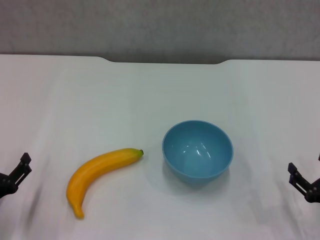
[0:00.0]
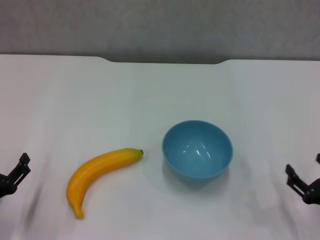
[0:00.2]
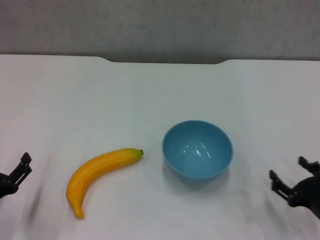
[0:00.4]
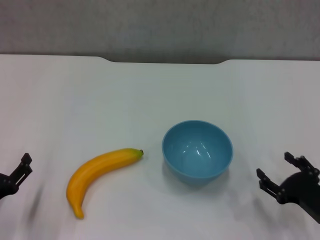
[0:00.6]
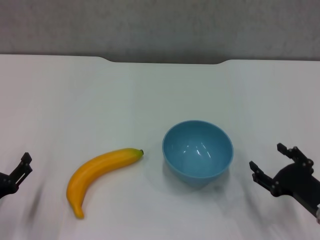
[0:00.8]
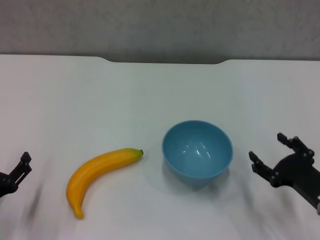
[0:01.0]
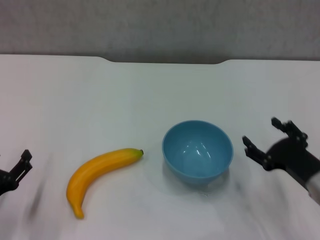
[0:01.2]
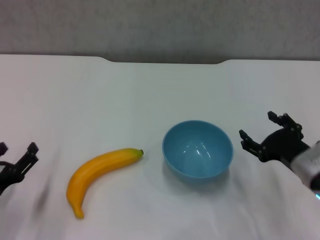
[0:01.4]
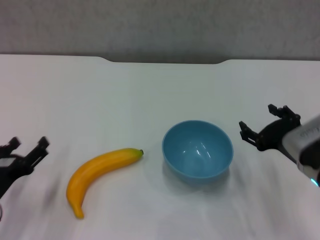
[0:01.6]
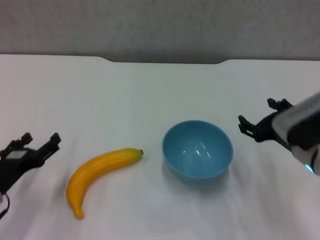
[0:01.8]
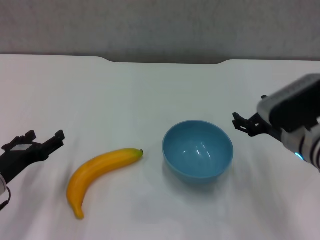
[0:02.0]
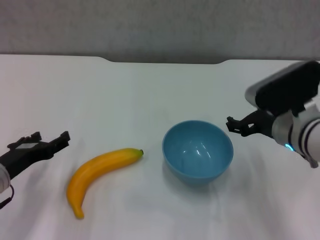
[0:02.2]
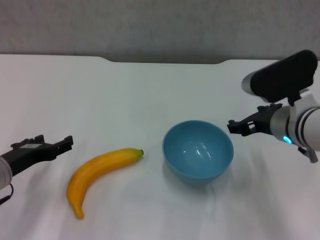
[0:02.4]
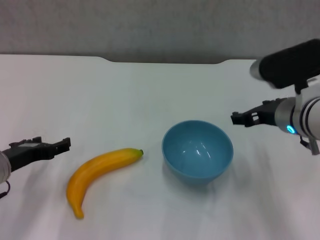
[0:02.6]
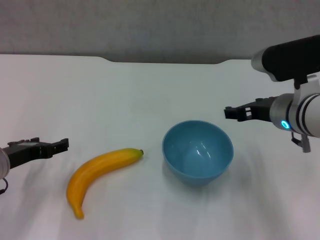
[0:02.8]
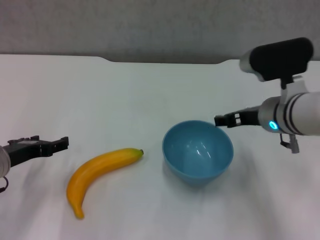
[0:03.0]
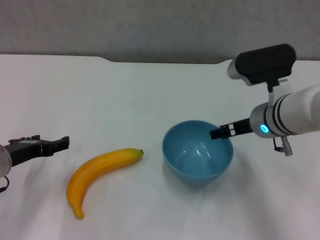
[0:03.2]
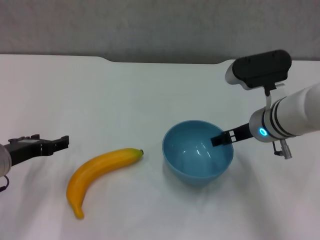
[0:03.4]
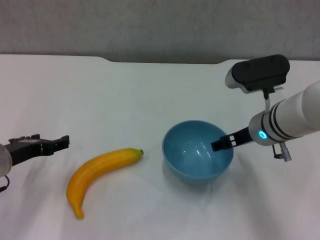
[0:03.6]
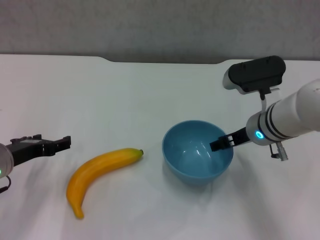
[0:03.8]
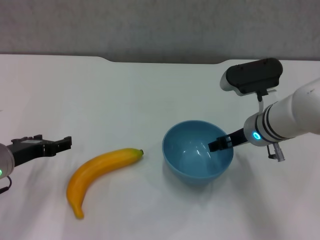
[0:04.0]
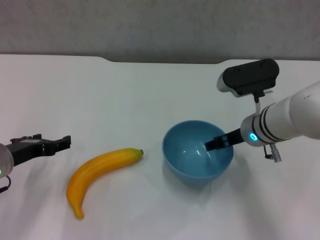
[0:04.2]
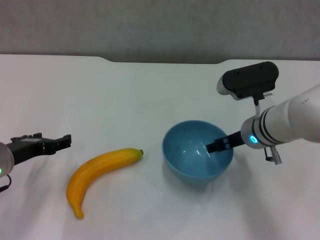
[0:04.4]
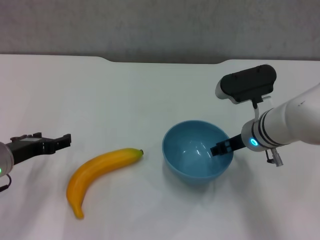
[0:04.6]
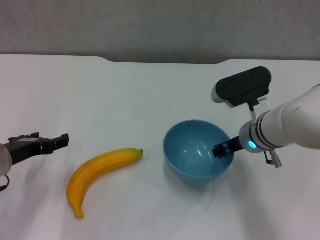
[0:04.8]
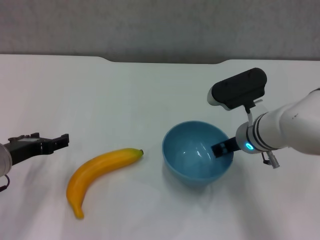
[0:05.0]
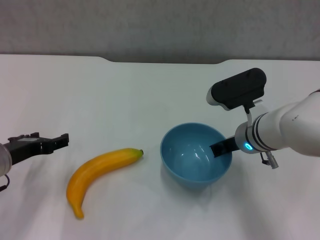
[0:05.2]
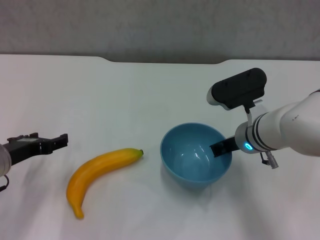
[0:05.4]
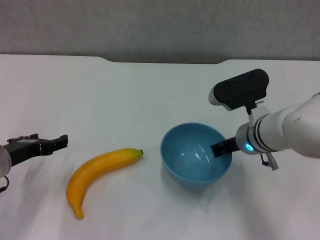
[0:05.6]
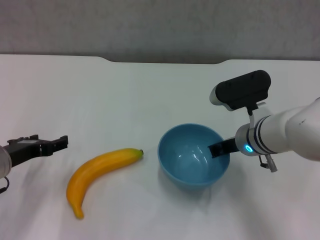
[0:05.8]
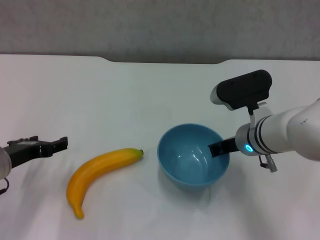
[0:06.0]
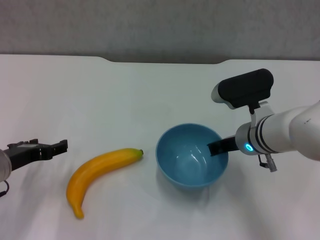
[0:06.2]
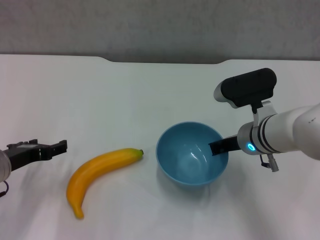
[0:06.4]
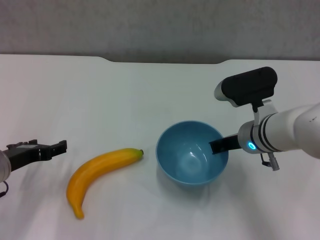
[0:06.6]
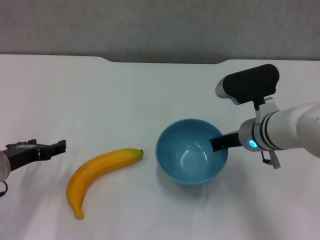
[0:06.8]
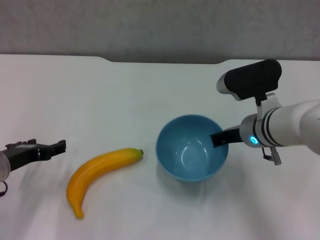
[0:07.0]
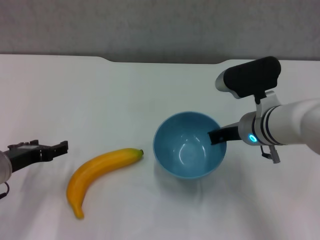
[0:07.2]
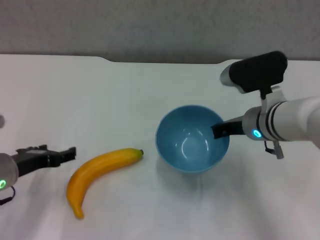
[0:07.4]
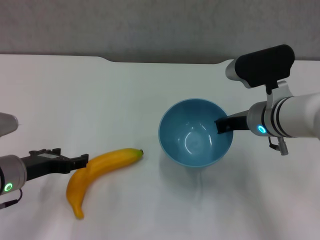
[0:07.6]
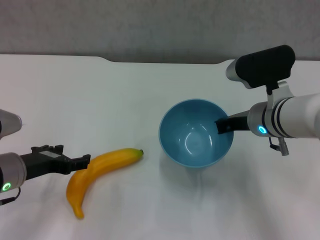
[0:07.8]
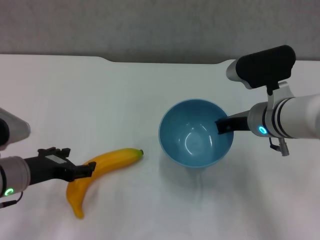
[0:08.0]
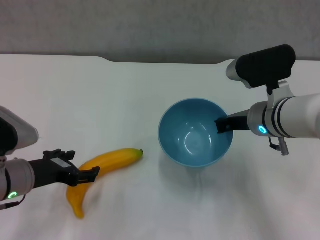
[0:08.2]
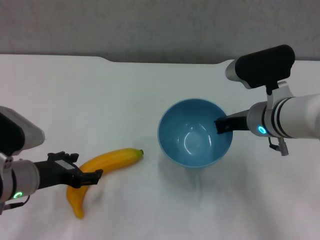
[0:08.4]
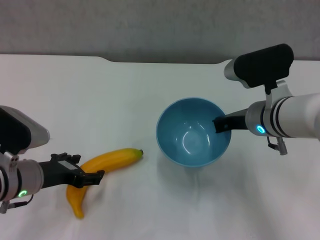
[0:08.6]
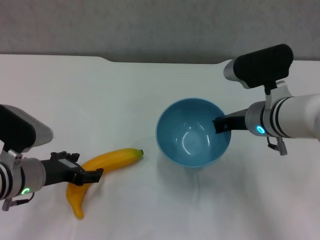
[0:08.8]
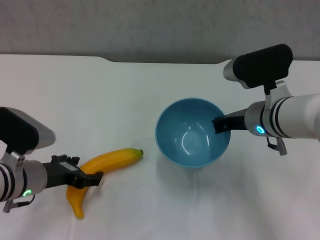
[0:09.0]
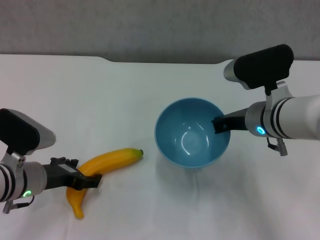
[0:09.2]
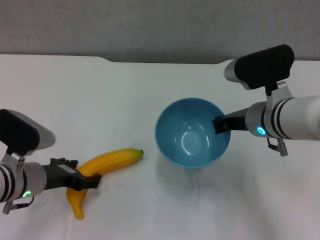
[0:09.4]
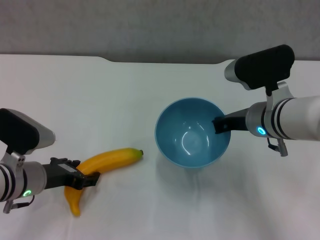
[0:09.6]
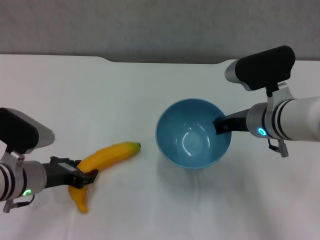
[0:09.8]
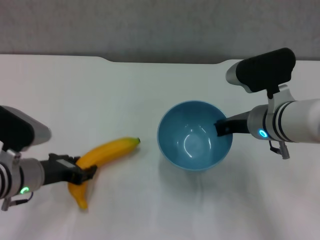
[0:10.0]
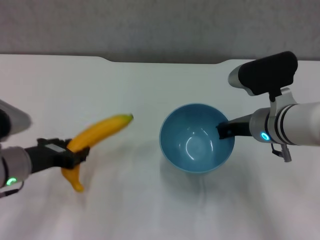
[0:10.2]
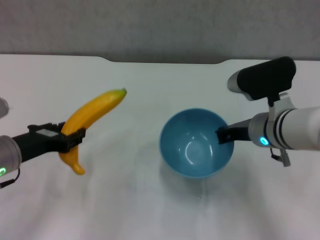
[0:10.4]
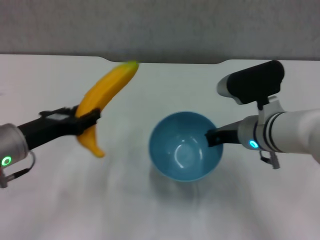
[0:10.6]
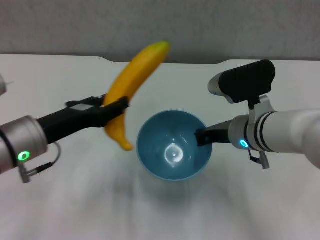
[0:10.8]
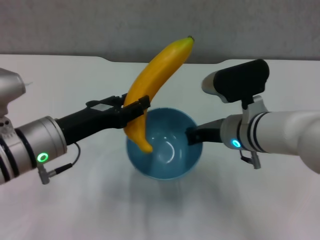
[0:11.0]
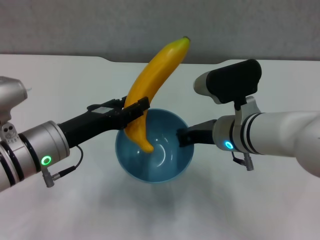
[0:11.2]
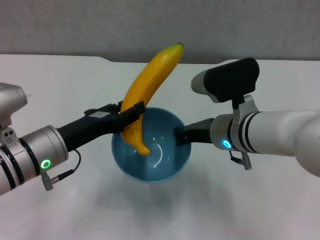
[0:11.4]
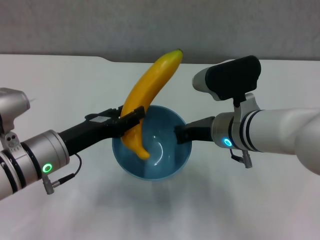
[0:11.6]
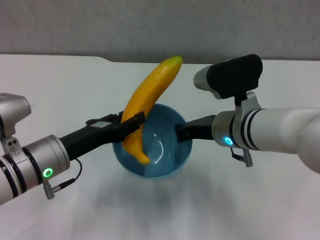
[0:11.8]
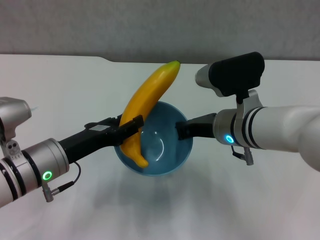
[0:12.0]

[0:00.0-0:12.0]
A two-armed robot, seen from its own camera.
Step, 0:00.0 to 0:05.0: Grasp the blue bowl with right gripper.
Step, 0:05.2 to 0:07.4: Lift the blue bowl with right gripper.
Step, 0:07.6 to 0:09.6: Grasp the banana with left gripper.
0:00.0 to 0:01.6: The right gripper moves upward, forward and to the left, roughly 15 cm.
0:01.6 to 0:03.0: The left gripper travels forward and upward by approximately 10 cm. Meanwhile the right gripper heads forward, to the left and upward, covering some 10 cm.
0:03.0 to 0:04.4: The right gripper ends up roughly 5 cm from where it was.
0:04.4 to 0:06.0: The right gripper closes its fingers.
0:07.6 to 0:09.0: The grippers stay close to where they were, moving slightly.
0:09.0 to 0:10.4: The left gripper goes approximately 5 cm upward, and closes.
0:10.4 to 0:12.0: The right gripper shifts by some 5 cm. The left gripper heads to the right, covering about 5 cm.

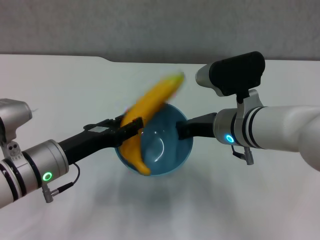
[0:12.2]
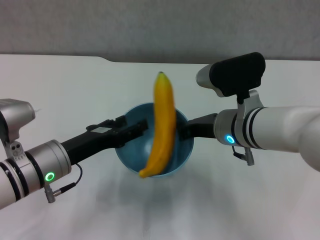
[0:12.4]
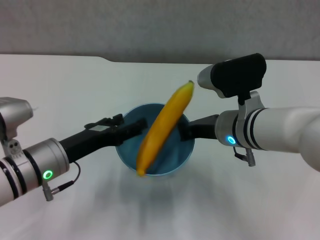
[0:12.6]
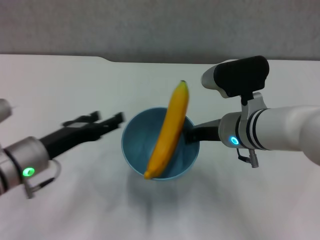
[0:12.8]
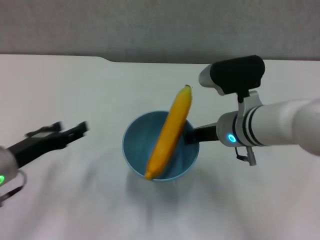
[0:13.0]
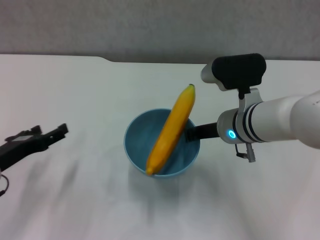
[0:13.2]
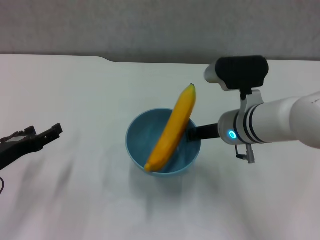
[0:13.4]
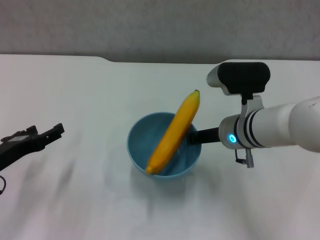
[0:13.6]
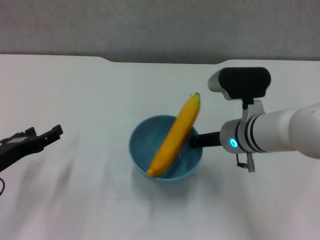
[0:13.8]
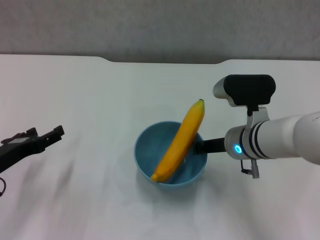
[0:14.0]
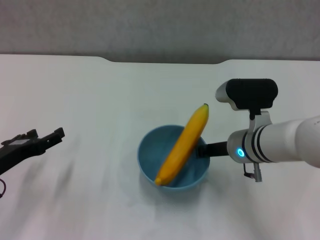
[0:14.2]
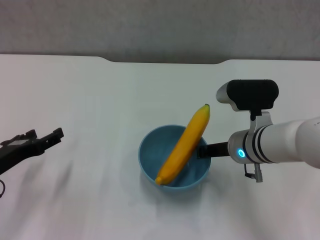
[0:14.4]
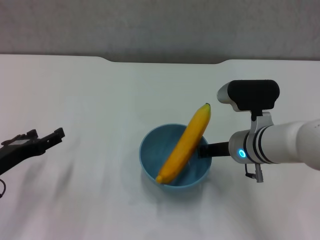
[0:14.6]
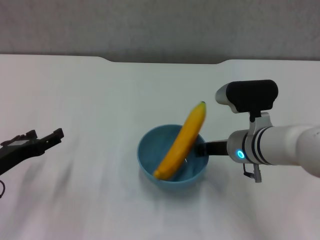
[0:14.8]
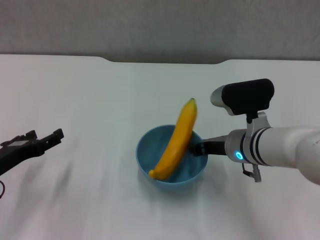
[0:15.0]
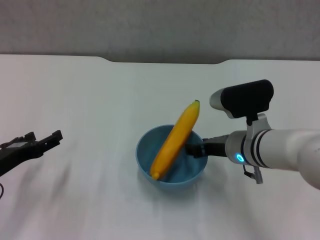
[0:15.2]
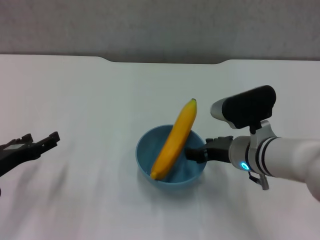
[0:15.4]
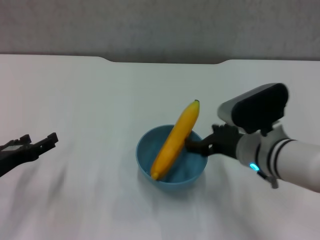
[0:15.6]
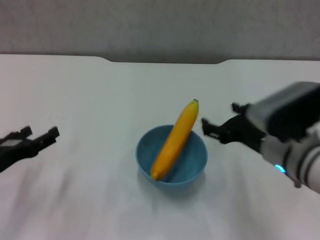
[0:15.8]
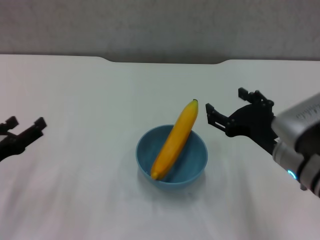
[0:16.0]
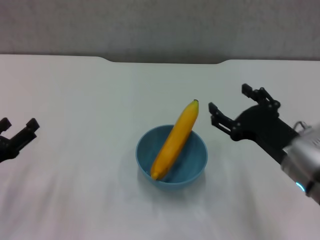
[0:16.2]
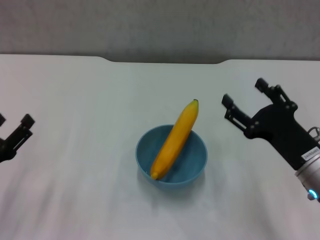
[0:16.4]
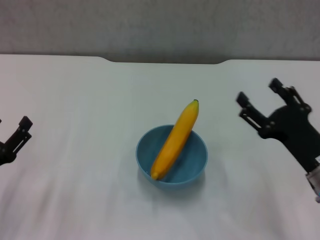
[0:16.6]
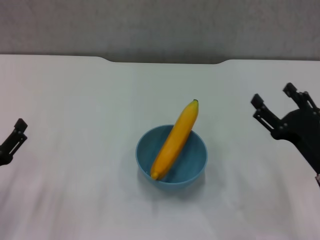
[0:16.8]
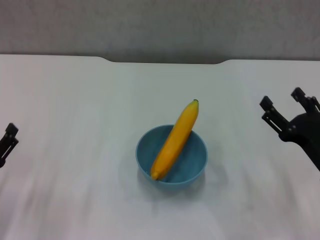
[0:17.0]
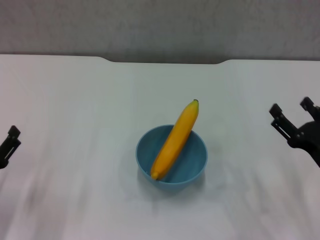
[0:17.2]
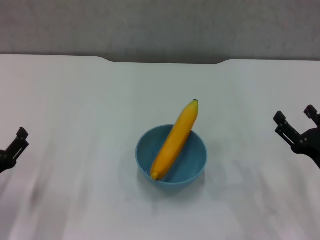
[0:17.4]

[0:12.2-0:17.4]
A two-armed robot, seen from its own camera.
Step, 0:12.8 to 0:15.4: Place the bowl on the table with right gripper.
0:12.2 to 0:14.0: The left gripper goes roughly 10 cm to the left, and opens. The right gripper ends up about 5 cm from where it was.
0:14.0 to 0:15.6: The right gripper changes place by approximately 5 cm, and opens its fingers.
0:15.6 to 0:17.4: The right gripper travels to the right, backward and downward by approximately 15 cm, while the left gripper changes place by about 5 cm.
